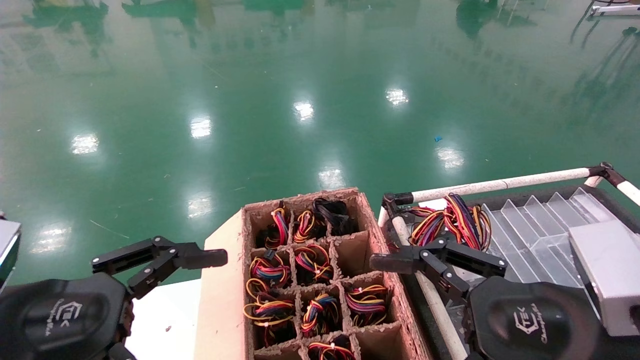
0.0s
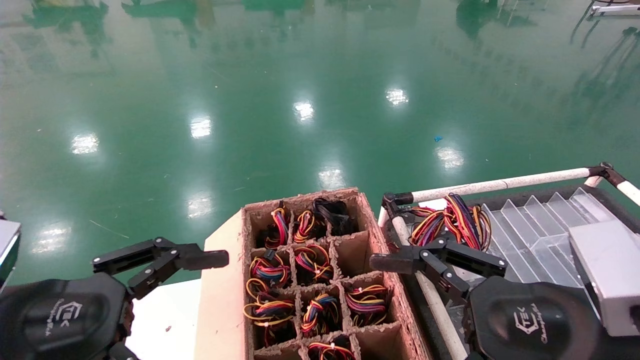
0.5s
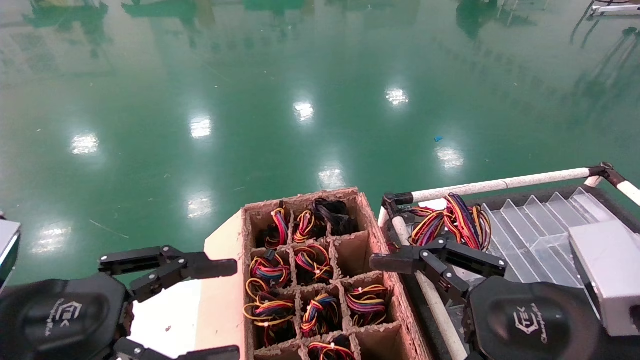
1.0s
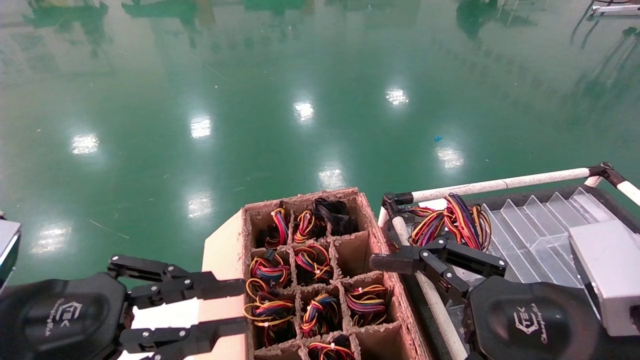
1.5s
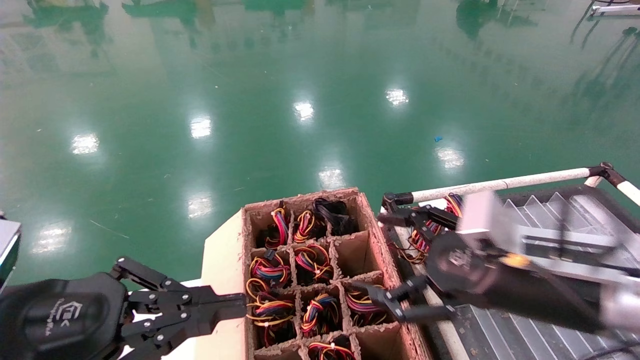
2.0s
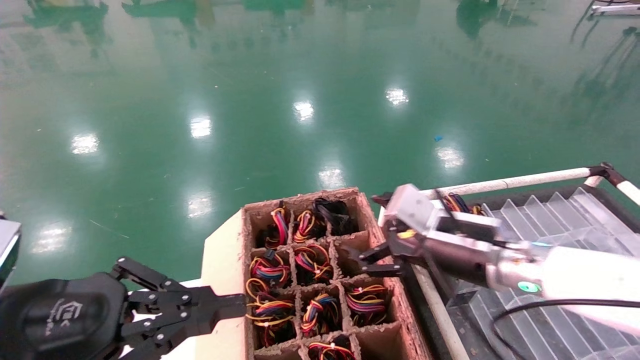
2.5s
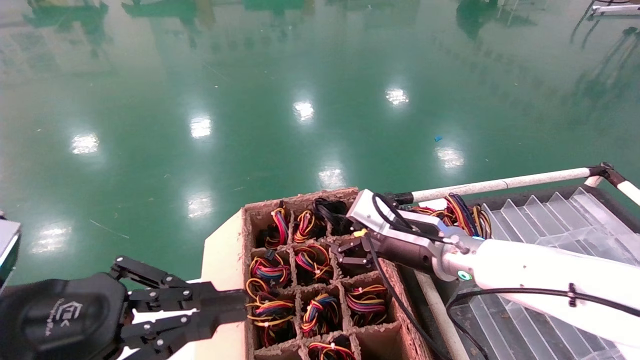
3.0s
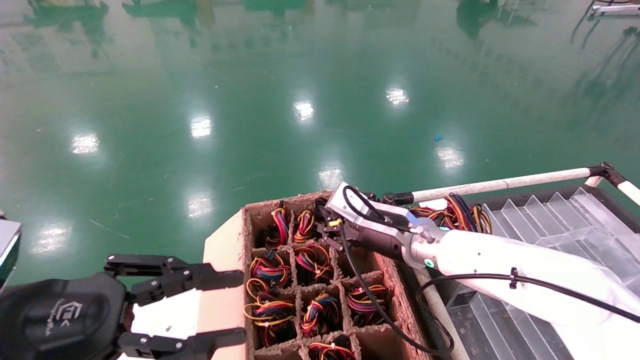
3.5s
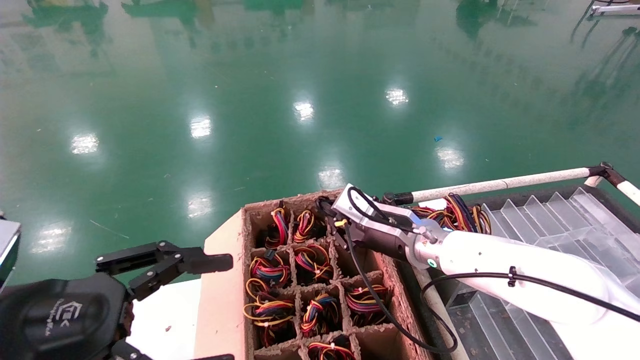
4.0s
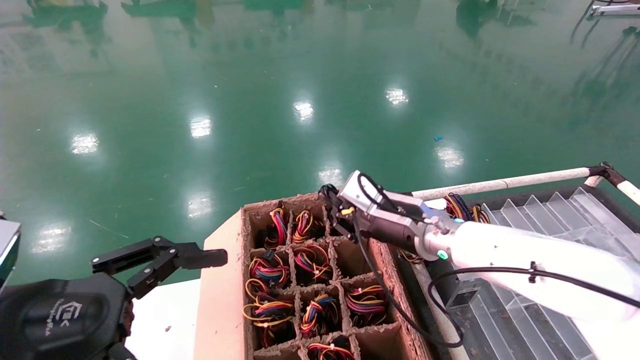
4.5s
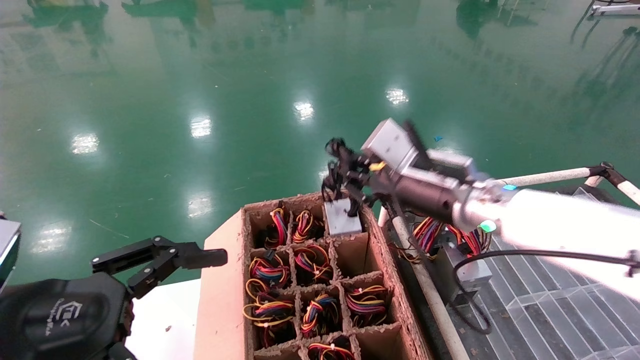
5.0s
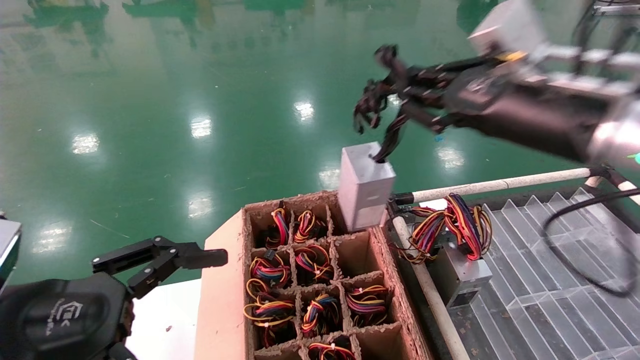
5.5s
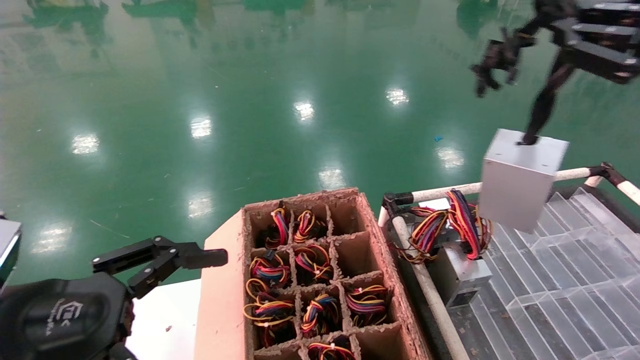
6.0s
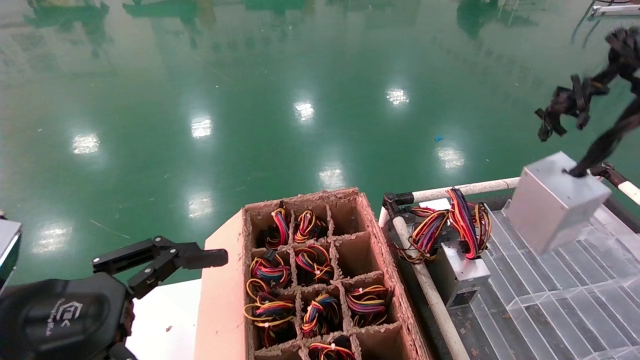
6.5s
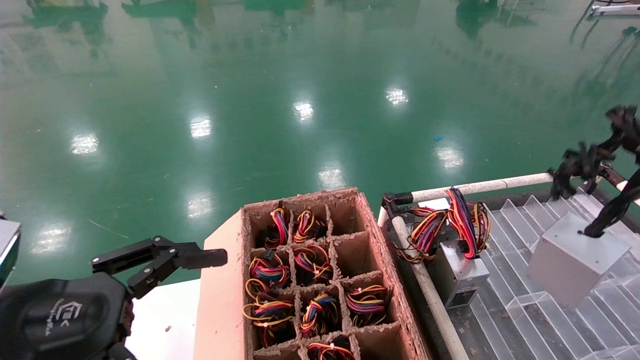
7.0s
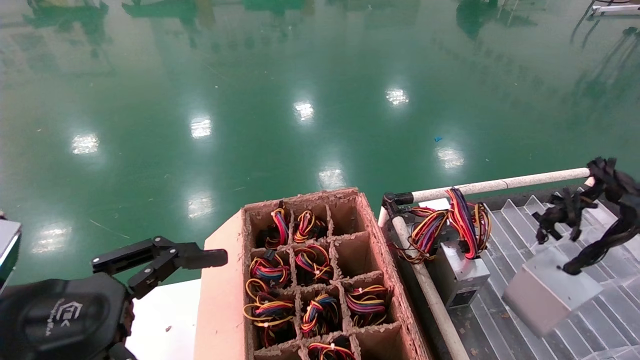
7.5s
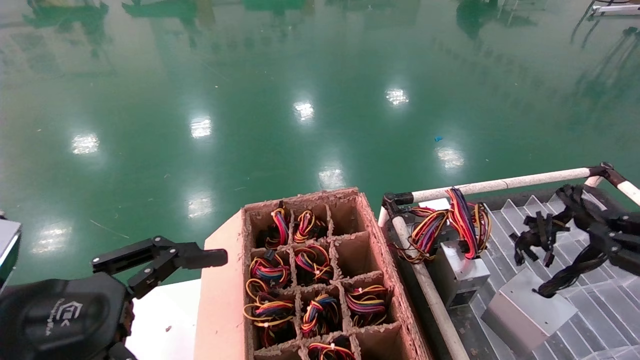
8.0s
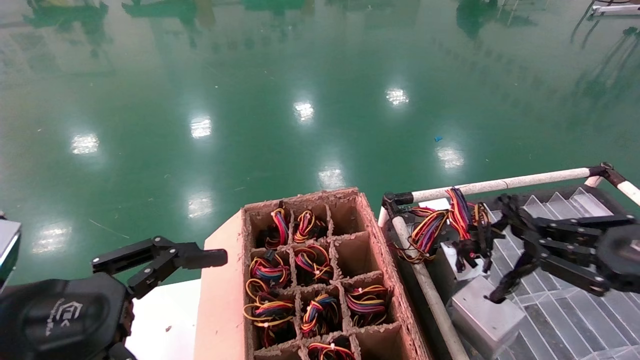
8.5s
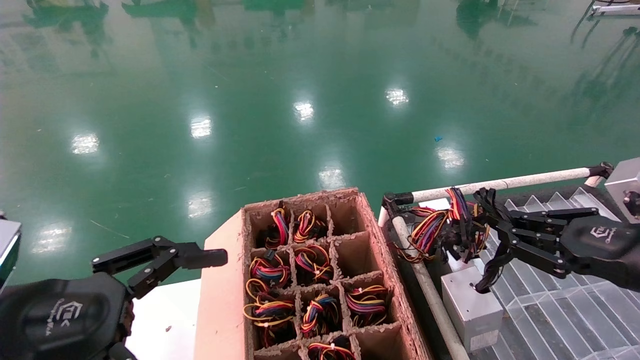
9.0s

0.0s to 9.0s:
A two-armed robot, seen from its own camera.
Step, 1.0s to 4.0s: Grab and lift the power supply from the large box.
0.0s to 2.0s: The right gripper moves forward, about 10 cm. The left gripper closes its fingers.
2.0s to 4.5s: The left gripper opens; the right gripper is displaced forward and to the left by about 15 cm, and closes.
4.5s to 7.0s: The right gripper travels to the right and backward by approximately 40 cm.
7.0s to 9.0s: The right gripper travels to the left, downward and forward by approximately 15 cm.

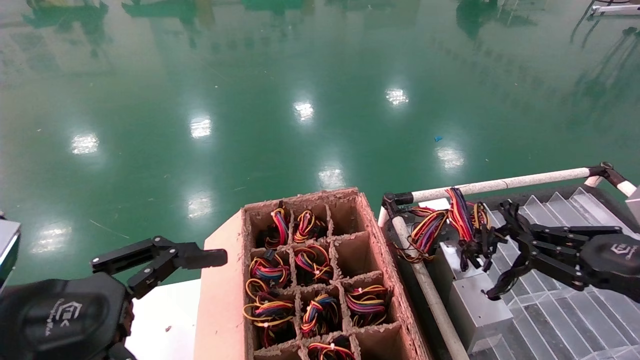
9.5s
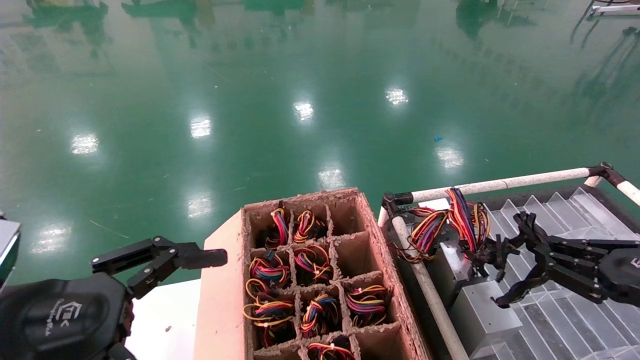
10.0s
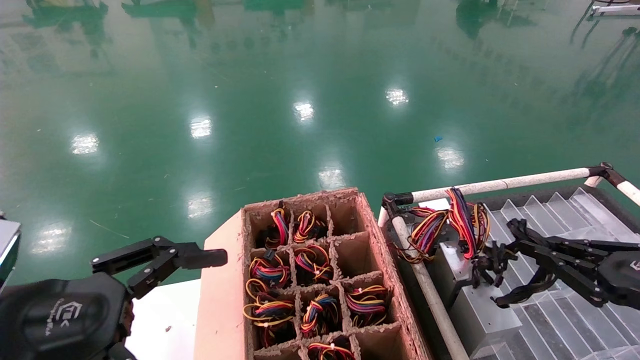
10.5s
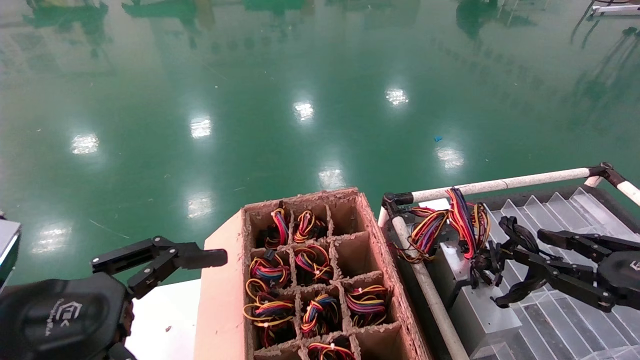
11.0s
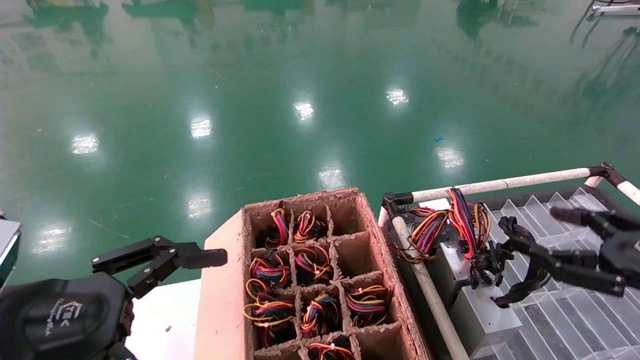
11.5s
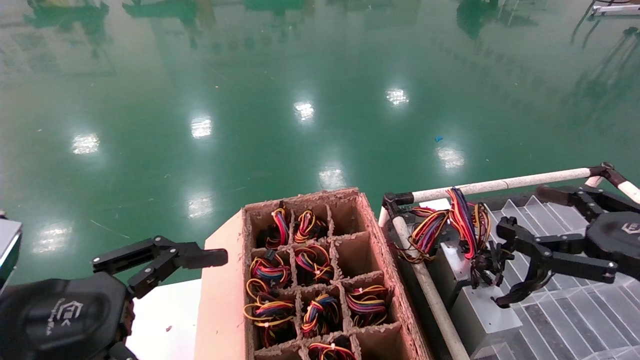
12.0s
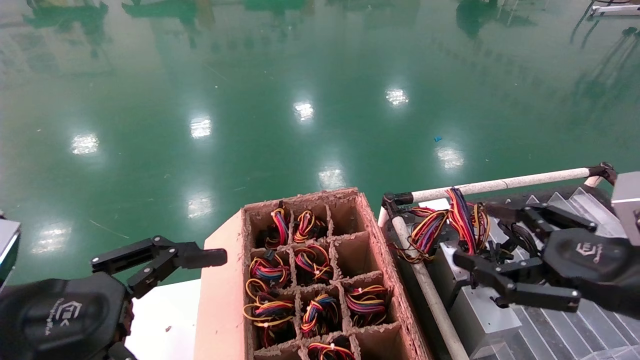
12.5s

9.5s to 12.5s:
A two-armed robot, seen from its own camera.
9.5s to 11.0s: The right gripper opens up.
11.0s to 12.5s: The right gripper is displaced to the left by some 5 cm, and opens.
